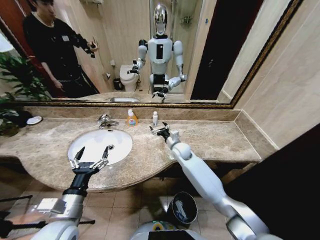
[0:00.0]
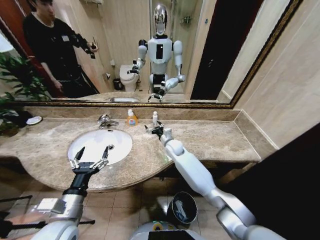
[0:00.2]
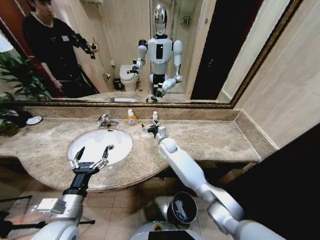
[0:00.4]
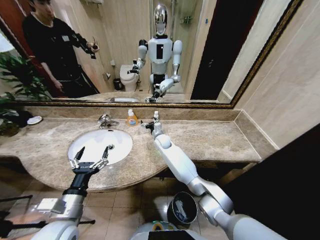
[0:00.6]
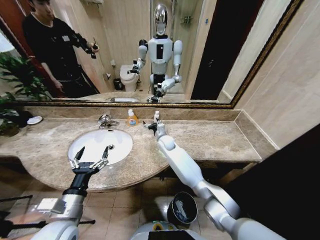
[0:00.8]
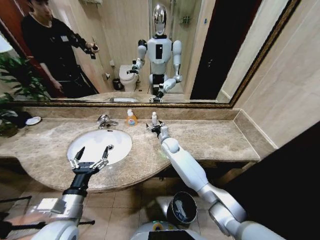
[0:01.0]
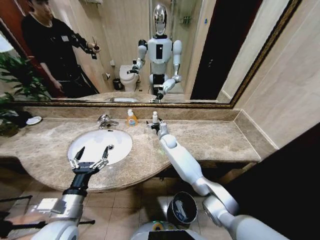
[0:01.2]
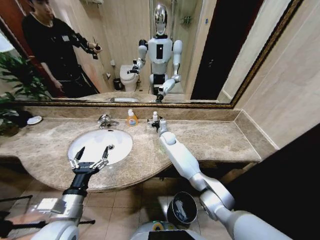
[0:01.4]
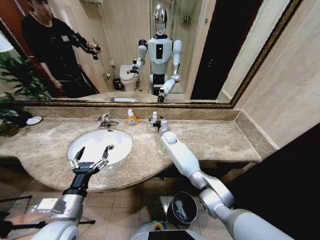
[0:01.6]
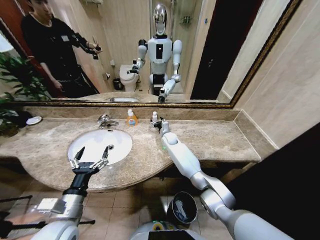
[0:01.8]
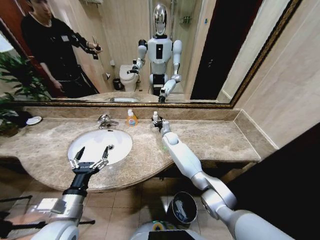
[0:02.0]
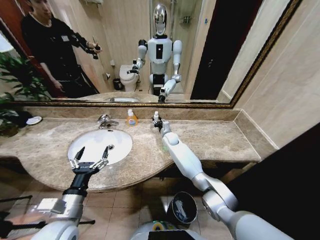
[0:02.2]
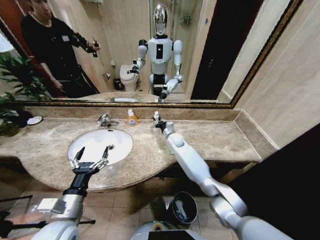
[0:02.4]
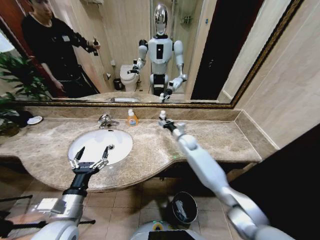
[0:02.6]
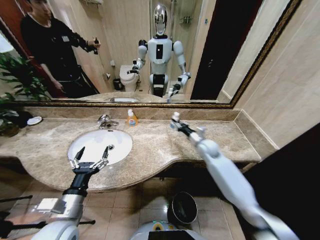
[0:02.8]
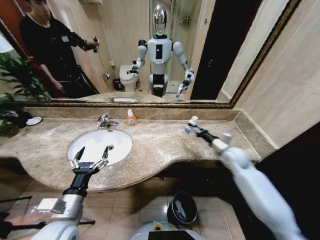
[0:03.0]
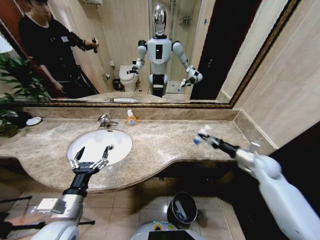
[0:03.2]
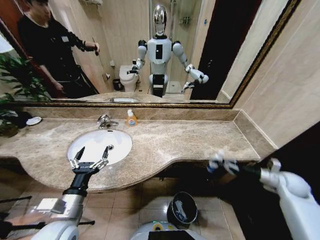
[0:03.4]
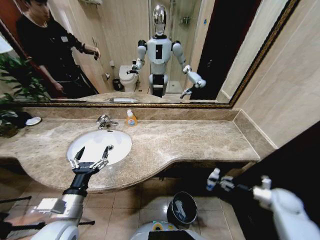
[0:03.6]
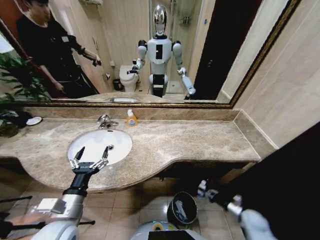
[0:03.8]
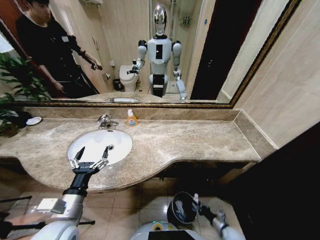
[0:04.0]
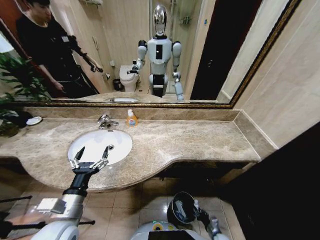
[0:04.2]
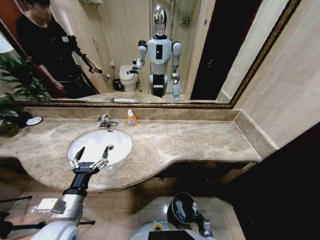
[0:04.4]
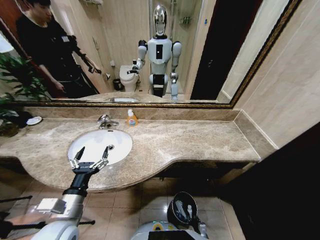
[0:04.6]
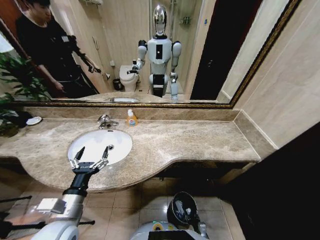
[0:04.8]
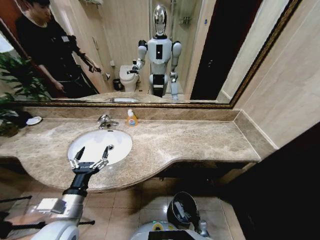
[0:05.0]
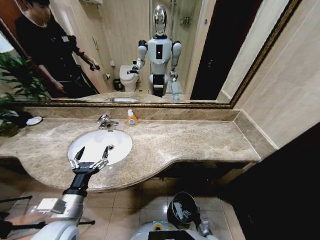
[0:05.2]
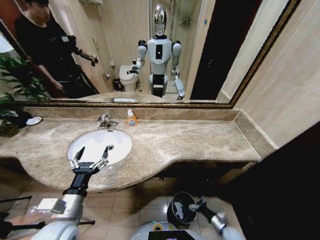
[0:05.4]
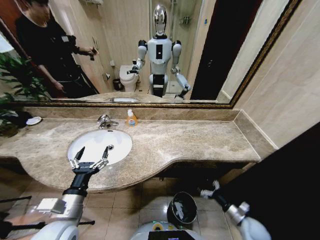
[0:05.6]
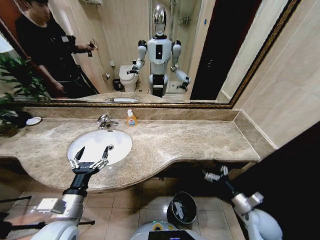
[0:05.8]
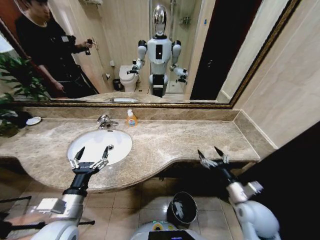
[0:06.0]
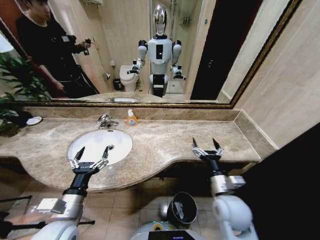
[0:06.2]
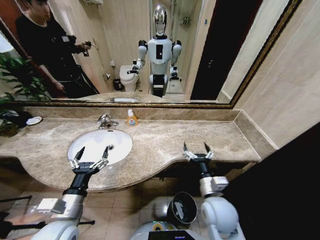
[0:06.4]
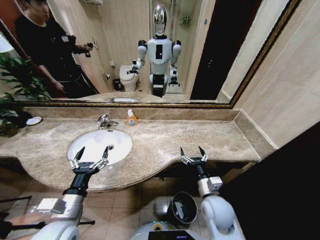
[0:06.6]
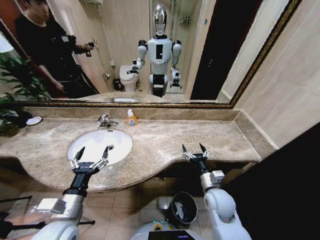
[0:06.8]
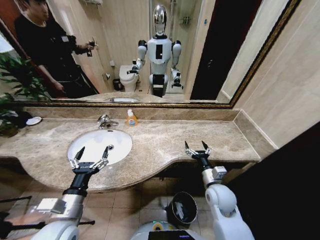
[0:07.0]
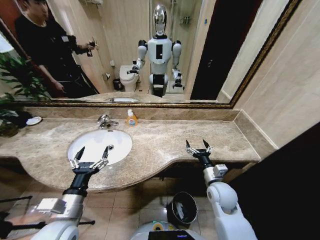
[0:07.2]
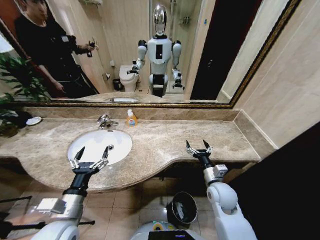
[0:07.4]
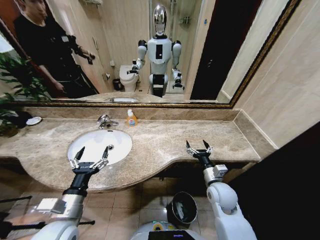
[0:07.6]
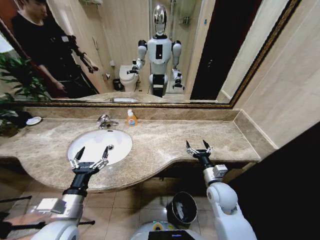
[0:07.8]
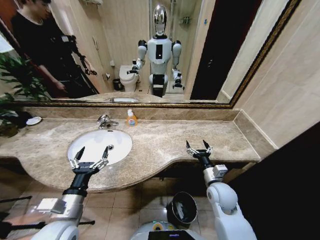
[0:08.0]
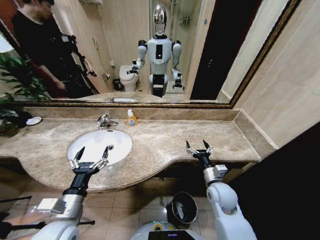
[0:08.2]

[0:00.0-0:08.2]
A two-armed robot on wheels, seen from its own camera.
Task of the whole recording: Pick up the trash from the sink and place it in the trash bin.
0:00.0 to 0:01.6: The right gripper shifts some 10 cm forward and to the left.
0:01.6 to 0:03.2: The right gripper is displaced to the right and backward by approximately 50 cm, and closes up.
0:03.2 to 0:05.0: The right gripper goes about 50 cm downward, backward and to the left, and opens up.
0:05.0 to 0:06.6: The right gripper goes roughly 40 cm upward.
0:06.6 to 0:08.2: The right gripper moves some 5 cm.
